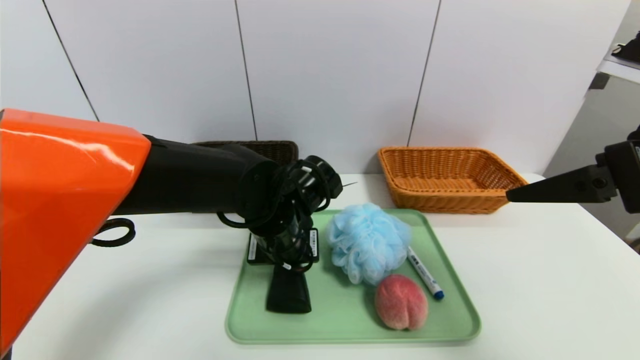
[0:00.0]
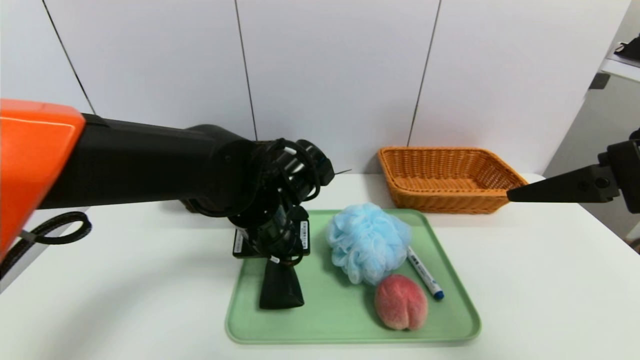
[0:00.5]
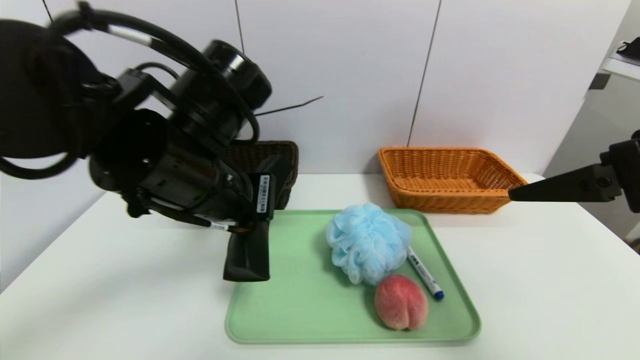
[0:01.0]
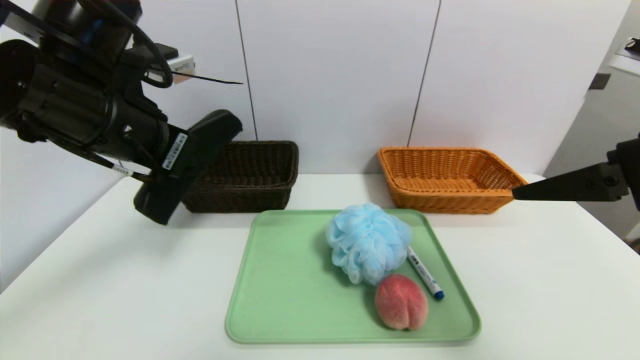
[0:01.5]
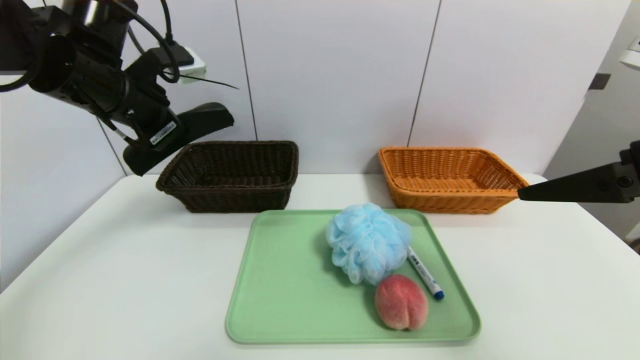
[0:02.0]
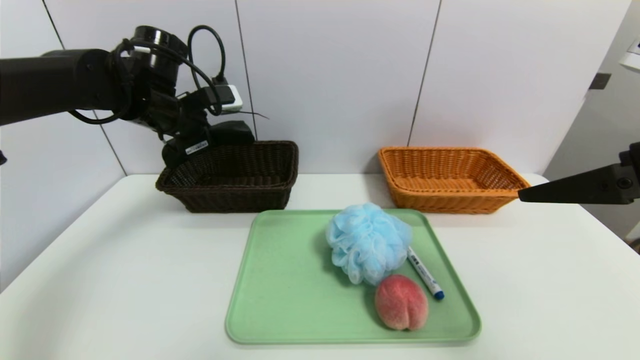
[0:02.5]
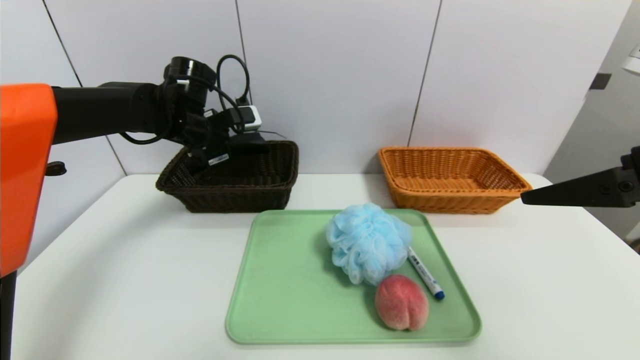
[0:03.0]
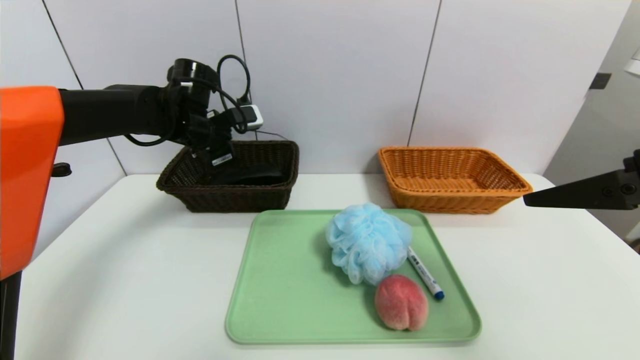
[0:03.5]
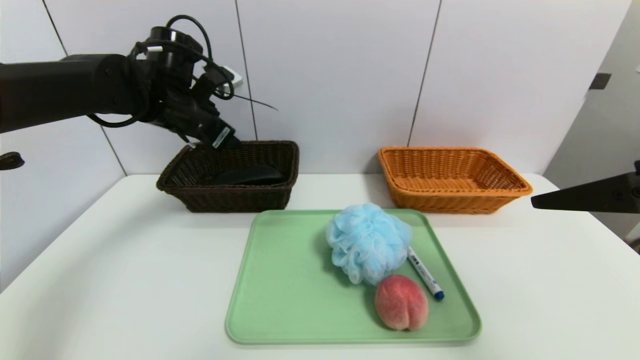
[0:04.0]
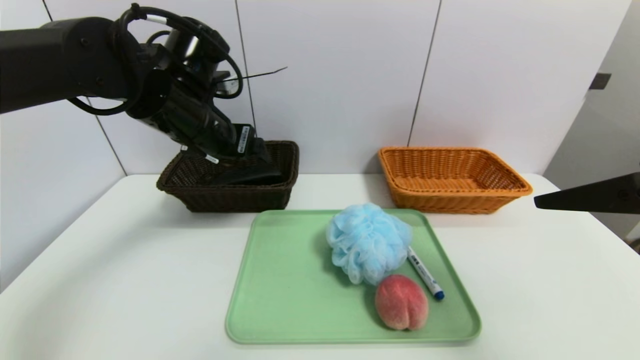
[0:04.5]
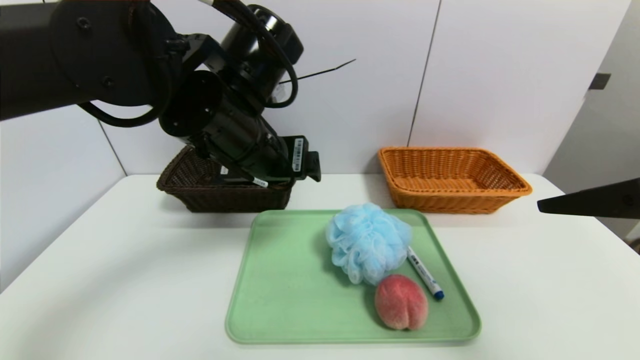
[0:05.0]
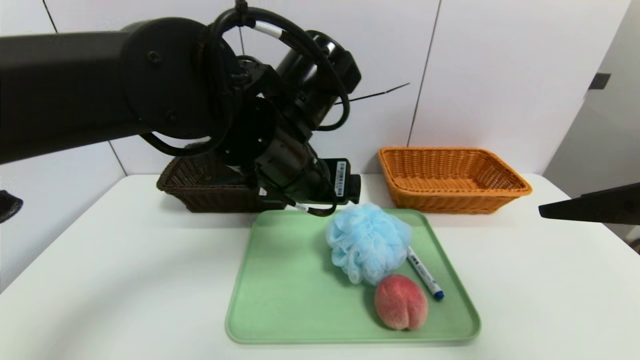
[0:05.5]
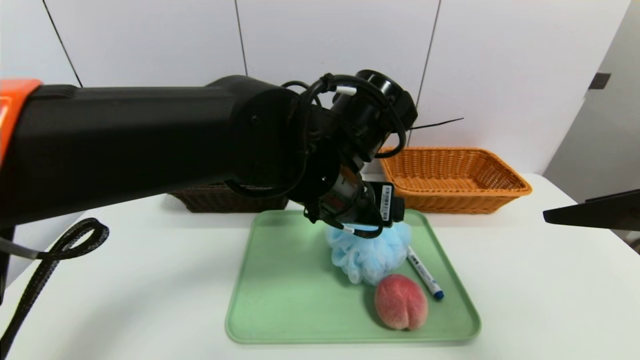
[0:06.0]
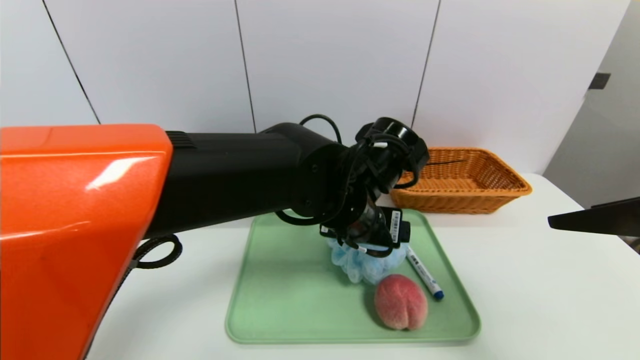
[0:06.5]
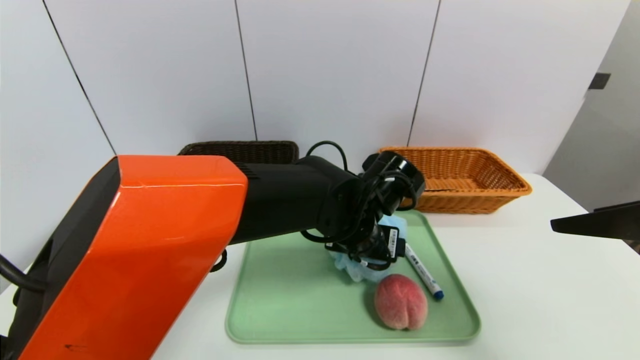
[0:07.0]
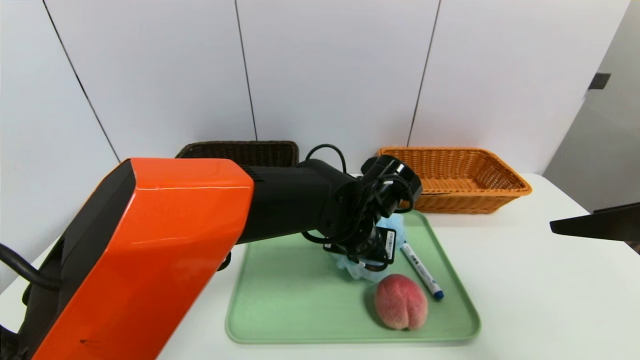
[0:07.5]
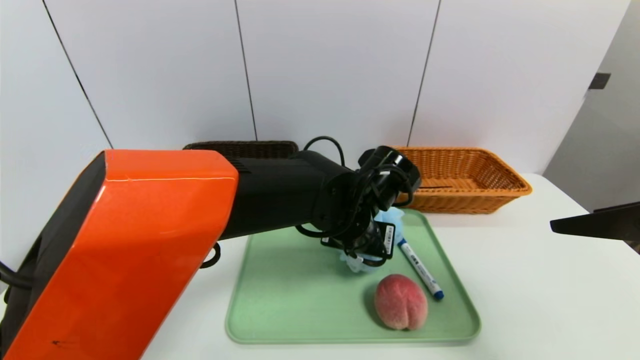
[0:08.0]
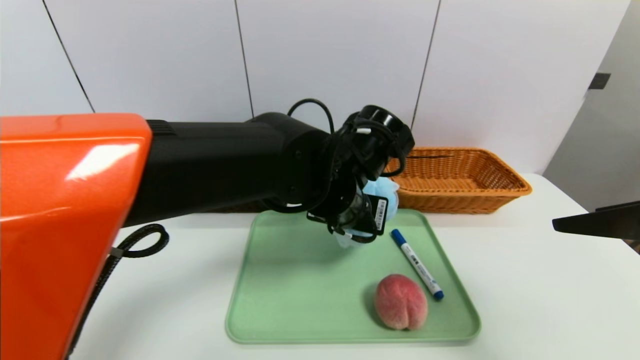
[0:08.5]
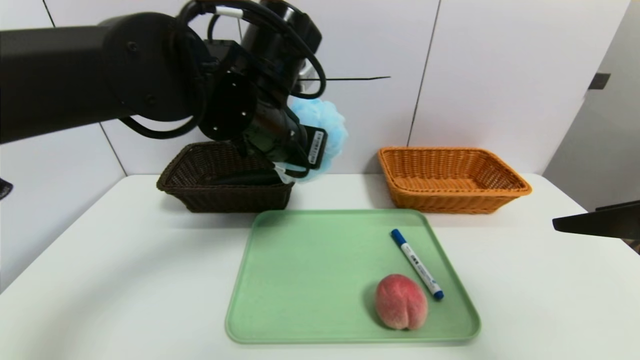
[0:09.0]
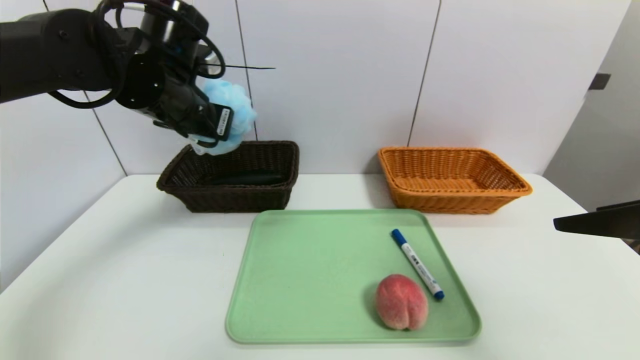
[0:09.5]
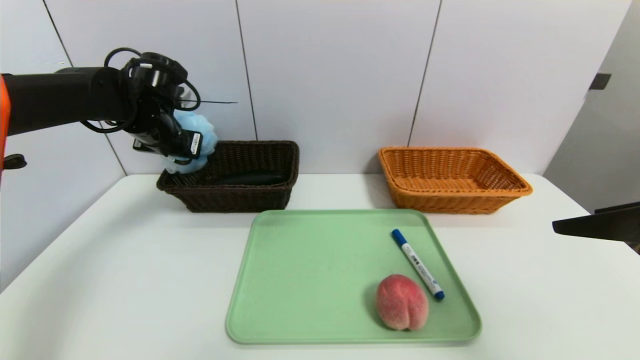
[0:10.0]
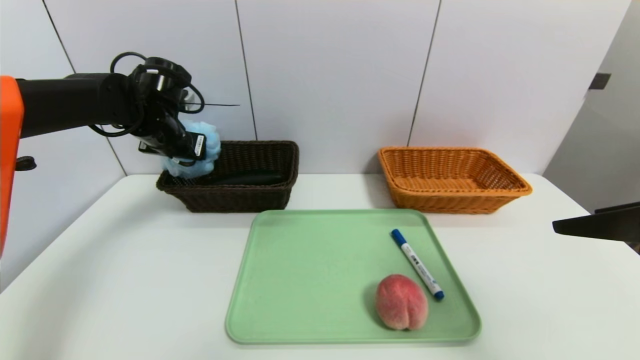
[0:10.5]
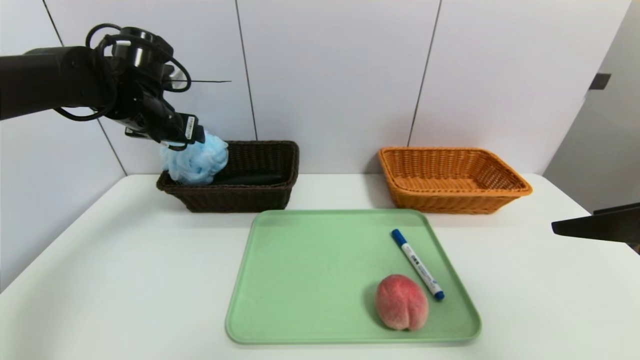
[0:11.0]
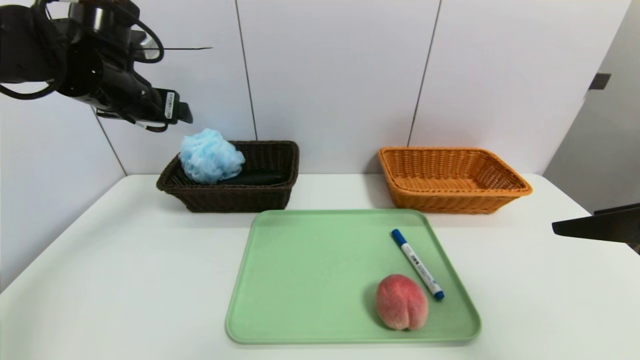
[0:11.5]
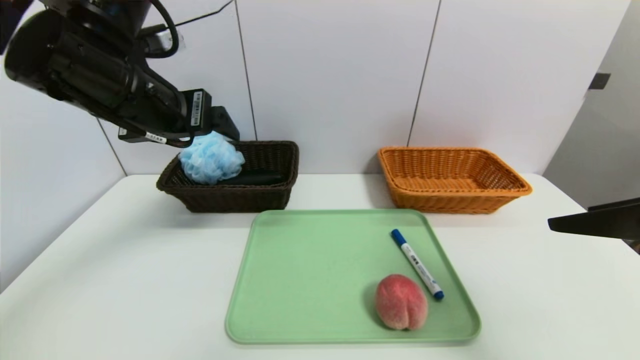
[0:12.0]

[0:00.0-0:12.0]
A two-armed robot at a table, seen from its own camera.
Task of the whole recording: place the food in the right basket with the right gripper, and place the non food items in the left basket with the left gripper.
Step, 0:00.0 to 0:03.5: Grasp the glasses case and put it in the left basket.
Step, 0:04.0 to 0:11.0: Grasp the shower sphere and put it in the left basket.
0:00.0 to 0:02.0: The left gripper shifts about 25 cm to the left and upward.
0:02.0 to 0:04.0: The left gripper travels forward by about 5 cm, and opens up.
0:04.0 to 0:06.0: The left gripper travels to the right and backward by about 25 cm.
0:06.0 to 0:08.0: The left gripper moves downward, about 10 cm, and closes its fingers.
0:08.0 to 0:10.0: The left gripper heads to the left and forward, covering approximately 30 cm.
0:10.0 to 0:12.0: The left gripper goes approximately 20 cm backward, upward and to the right, and opens.

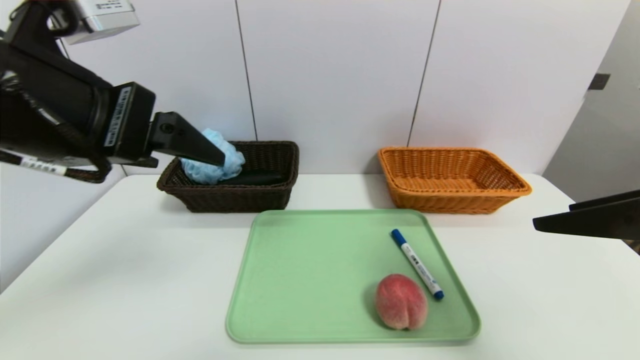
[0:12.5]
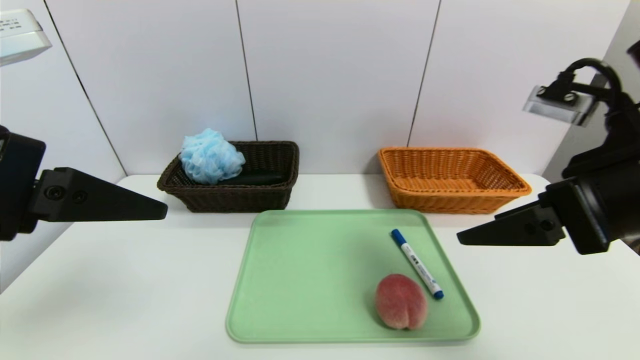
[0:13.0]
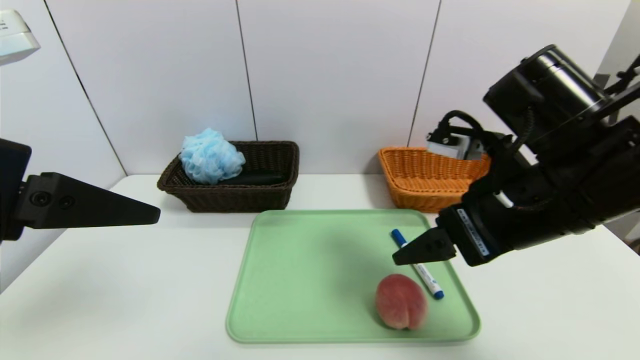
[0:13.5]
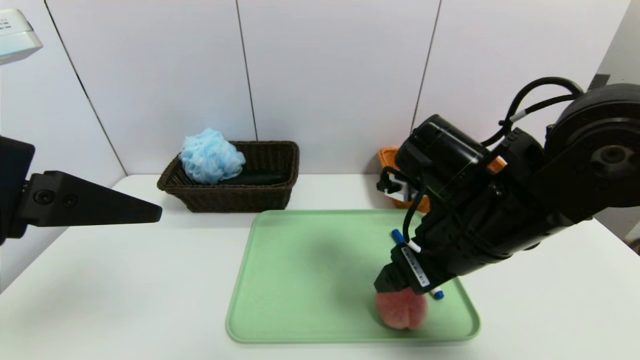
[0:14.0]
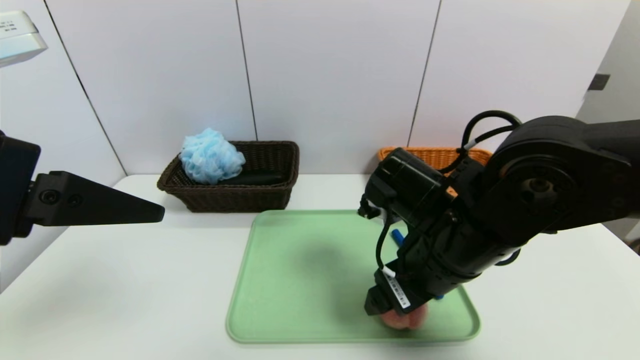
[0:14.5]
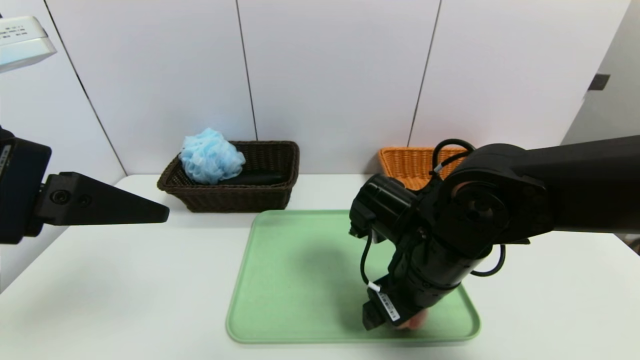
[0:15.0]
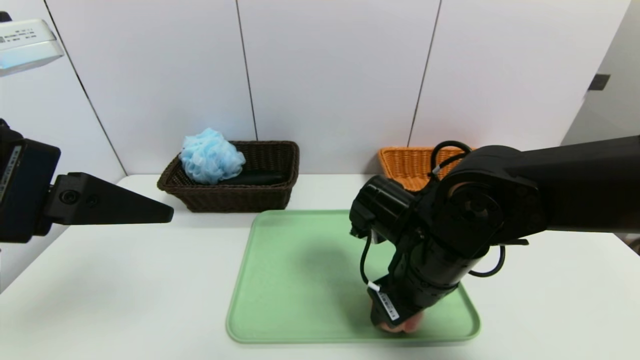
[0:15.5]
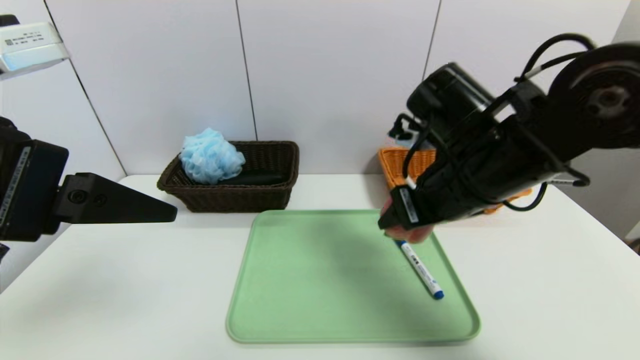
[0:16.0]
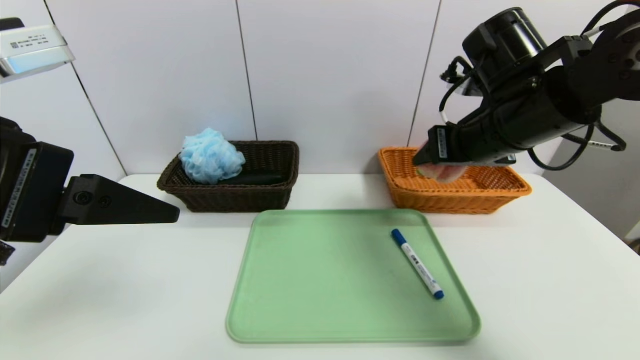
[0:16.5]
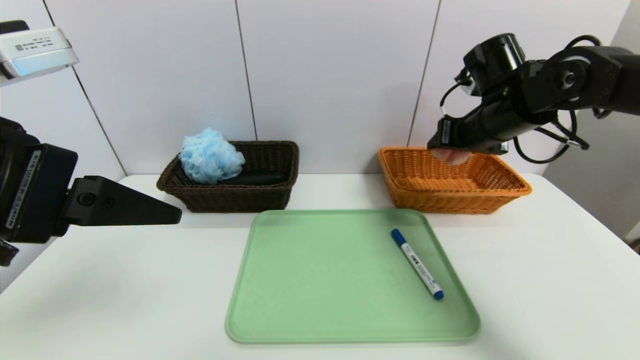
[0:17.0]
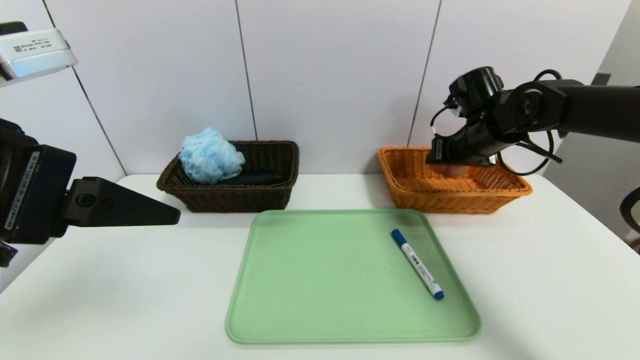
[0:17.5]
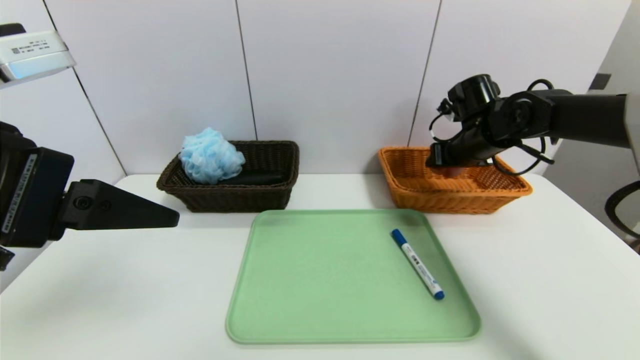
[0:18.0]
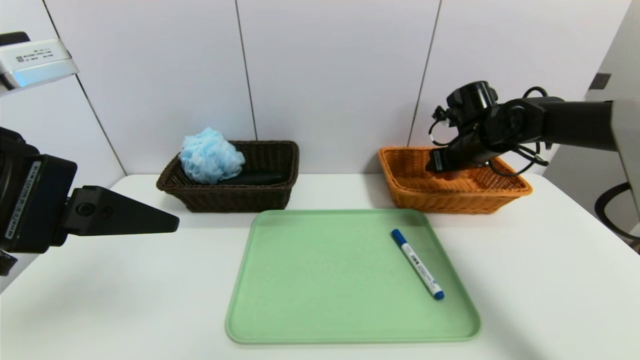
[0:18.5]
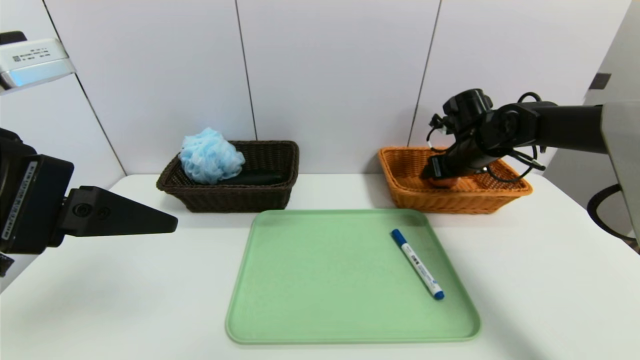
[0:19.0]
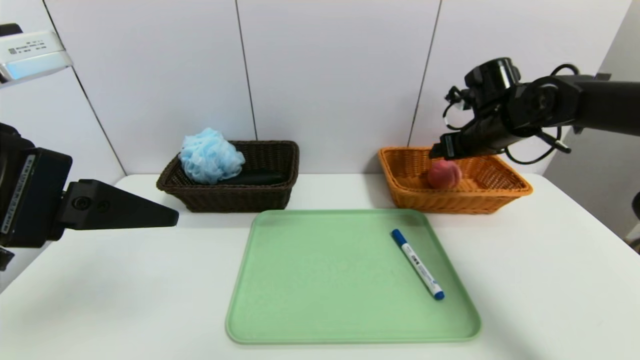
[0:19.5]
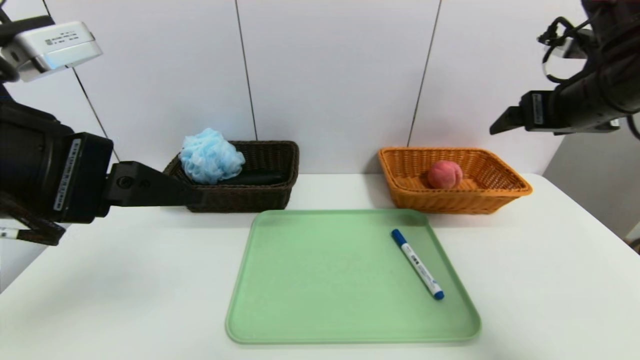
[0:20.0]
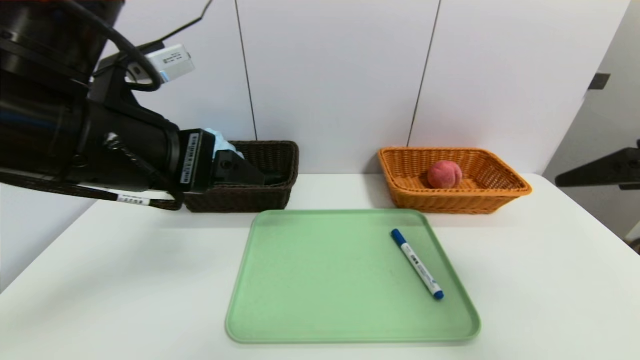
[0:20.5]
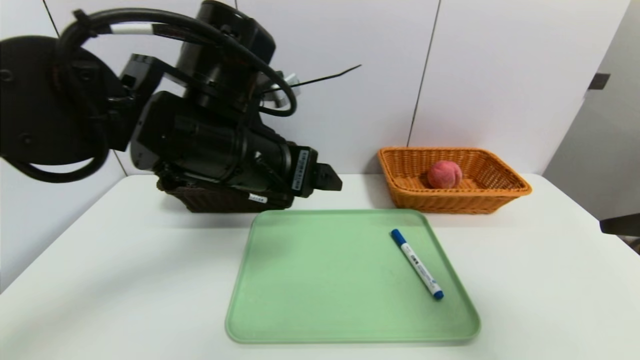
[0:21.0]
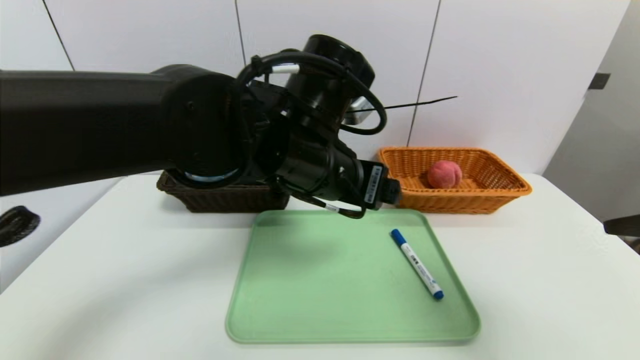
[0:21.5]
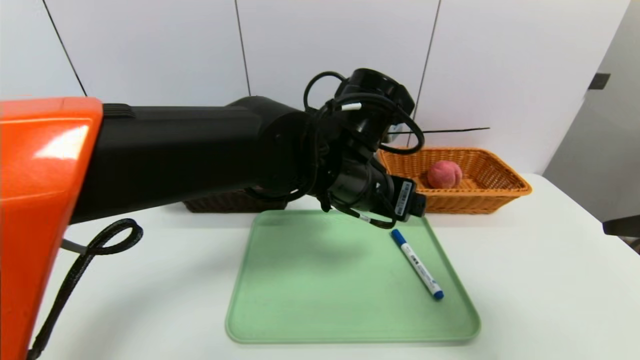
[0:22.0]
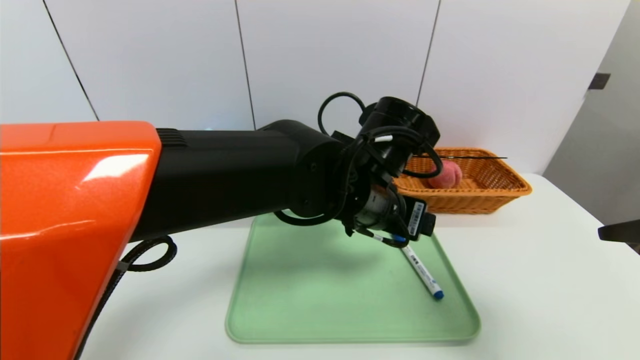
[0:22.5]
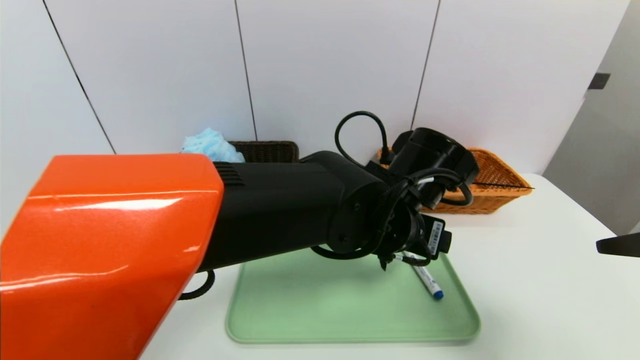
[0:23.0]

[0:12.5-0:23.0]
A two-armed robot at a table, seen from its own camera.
Task of the whole recording: place the food in the right basket with the right gripper, and place the non food items in the left basket with the left gripper.
Step, 0:12.5 to 0:19.0: Grasp the peach and put it in the right basket.
0:12.5 to 0:14.5: The right gripper shifts some 20 cm to the left, downward and forward; the left gripper ends up roughly 5 cm from where it was.
0:14.5 to 0:16.5: The right gripper is displaced upward, to the right and forward by some 15 cm, and closes.
0:16.5 to 0:19.0: The right gripper travels forward, downward and to the right by approximately 20 cm, and opens its fingers.
0:19.0 to 0:21.0: The right gripper goes some 35 cm backward and upward, and opens its fingers; the left gripper heads to the right and forward, covering roughly 20 cm.
0:21.0 to 0:23.0: The left gripper shifts about 20 cm to the right and downward.
